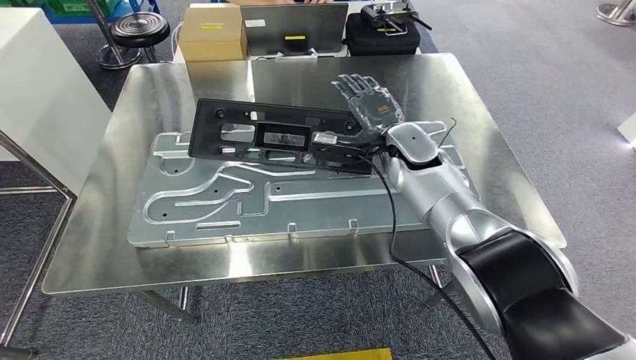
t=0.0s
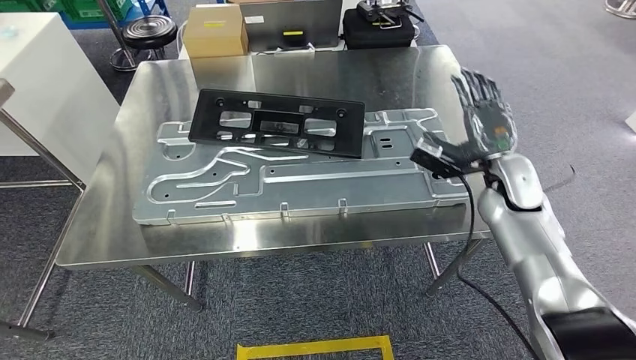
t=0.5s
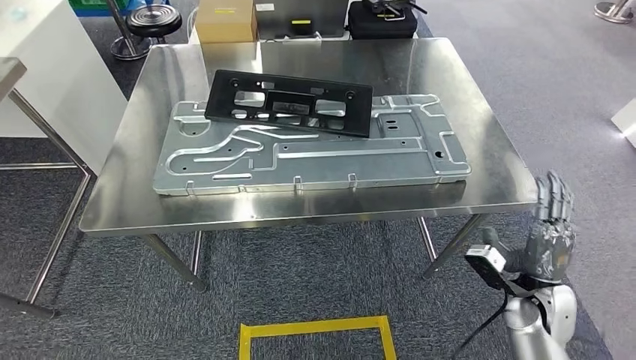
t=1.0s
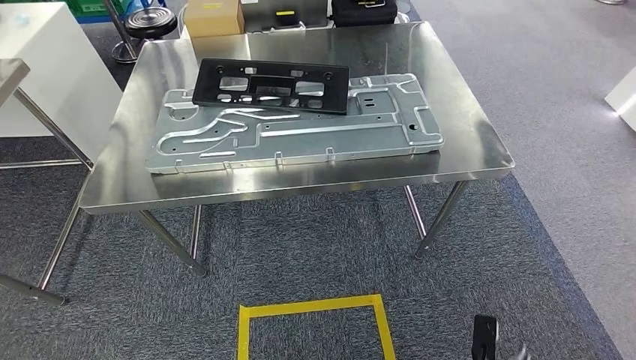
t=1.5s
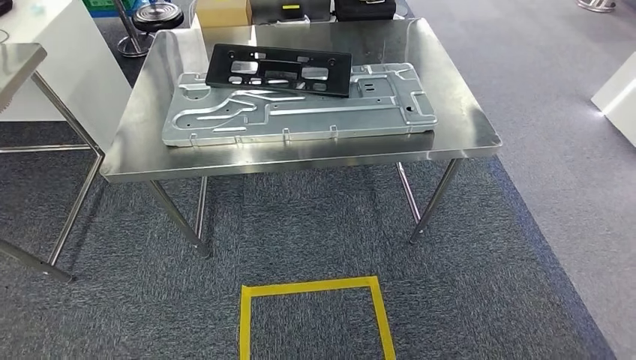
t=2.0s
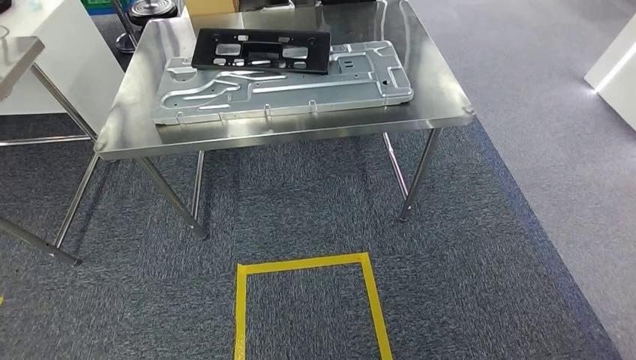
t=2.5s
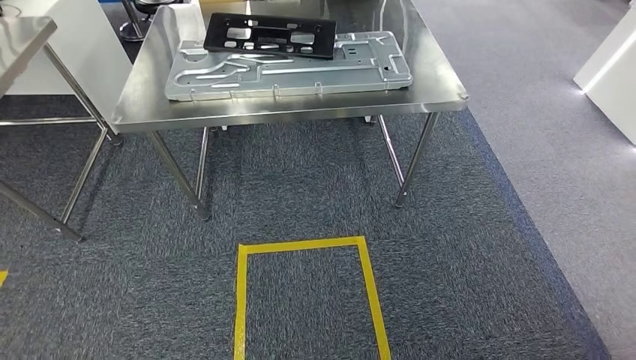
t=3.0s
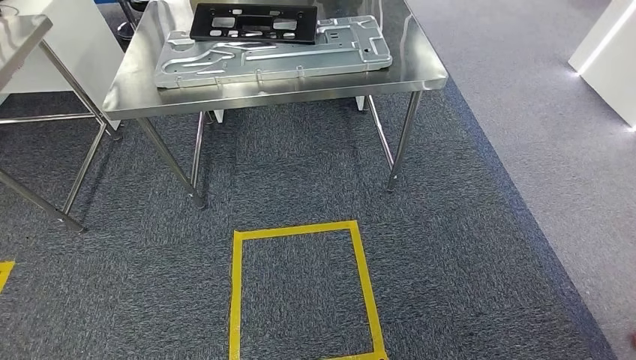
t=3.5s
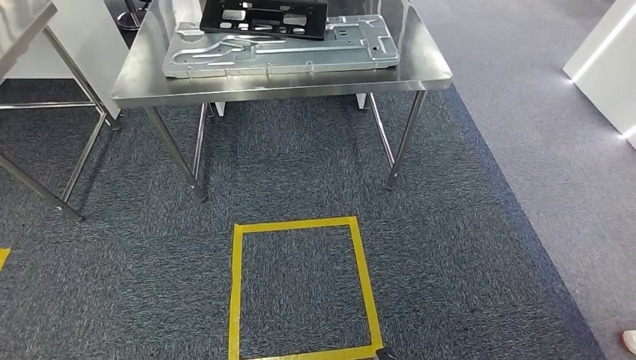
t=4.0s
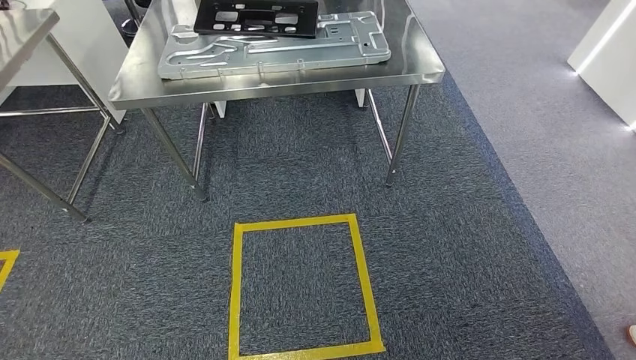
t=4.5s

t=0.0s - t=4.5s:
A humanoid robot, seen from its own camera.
Step, t=0.0s - t=3.0s: Insert the large material into the corresponding hole on the workbench.
Step, t=4.0s - t=4.5s: Move to the initial position of the shelf.
